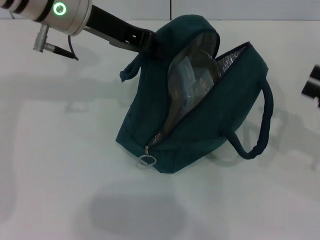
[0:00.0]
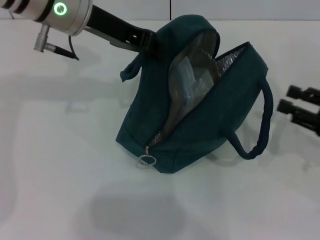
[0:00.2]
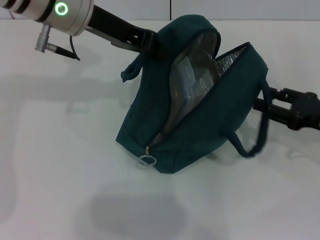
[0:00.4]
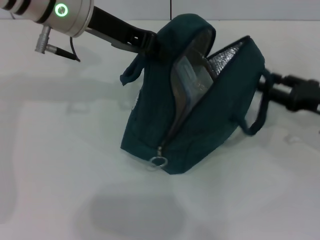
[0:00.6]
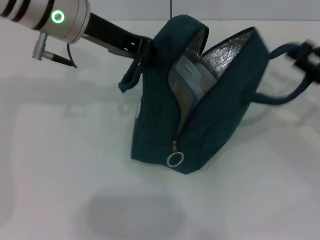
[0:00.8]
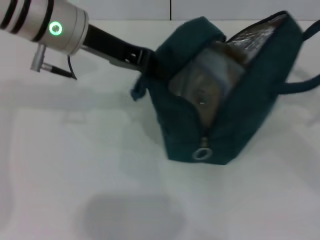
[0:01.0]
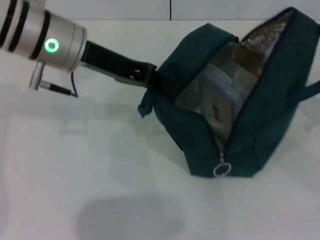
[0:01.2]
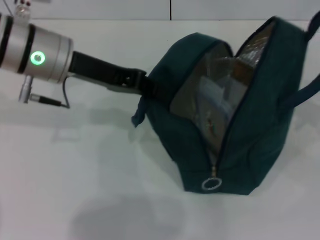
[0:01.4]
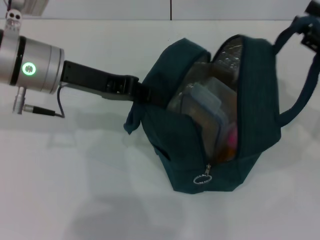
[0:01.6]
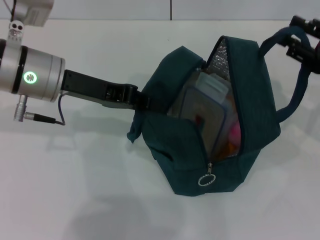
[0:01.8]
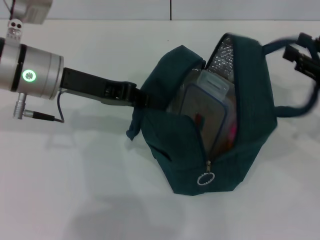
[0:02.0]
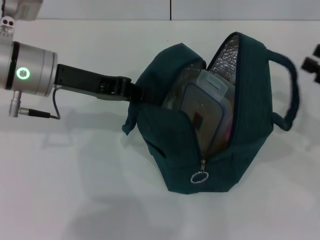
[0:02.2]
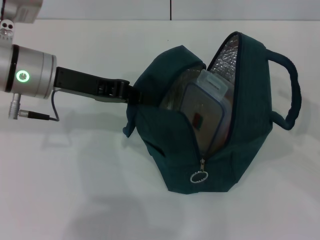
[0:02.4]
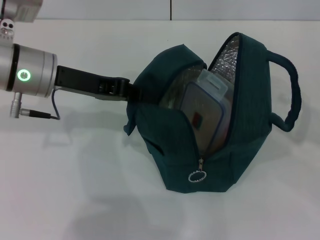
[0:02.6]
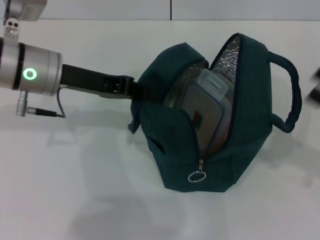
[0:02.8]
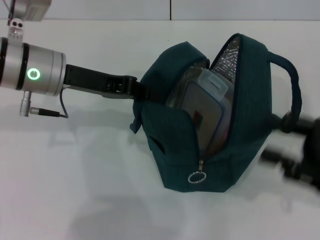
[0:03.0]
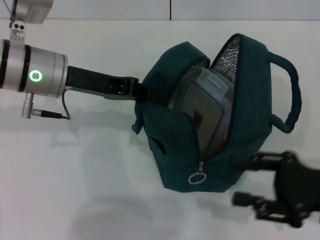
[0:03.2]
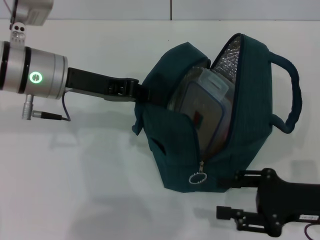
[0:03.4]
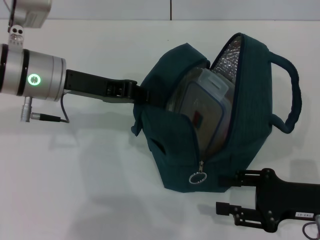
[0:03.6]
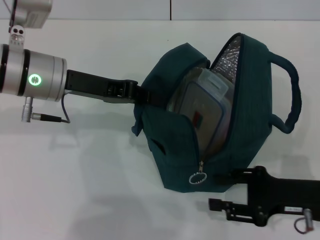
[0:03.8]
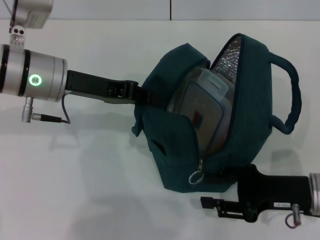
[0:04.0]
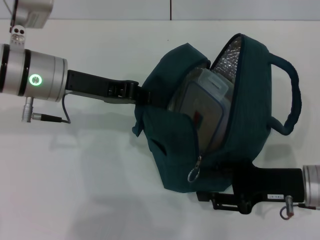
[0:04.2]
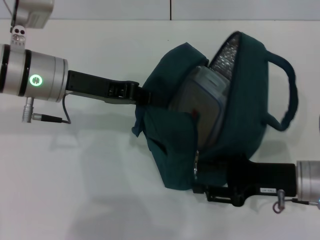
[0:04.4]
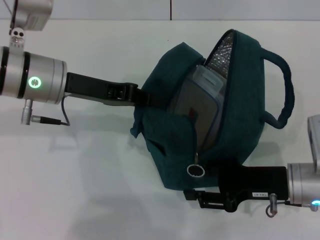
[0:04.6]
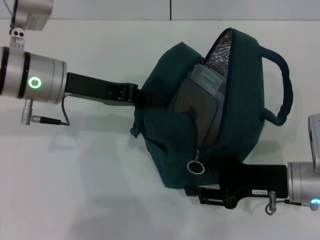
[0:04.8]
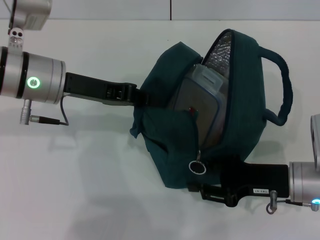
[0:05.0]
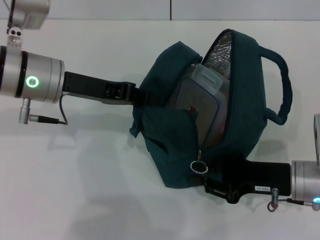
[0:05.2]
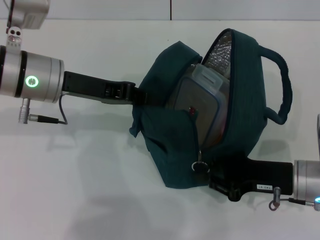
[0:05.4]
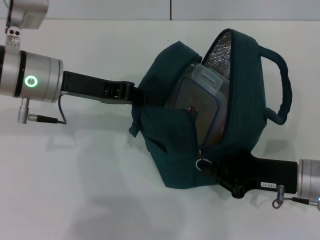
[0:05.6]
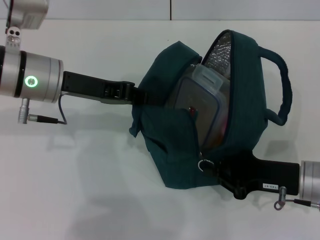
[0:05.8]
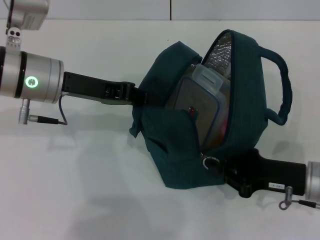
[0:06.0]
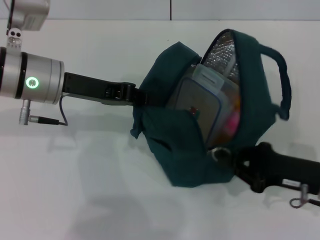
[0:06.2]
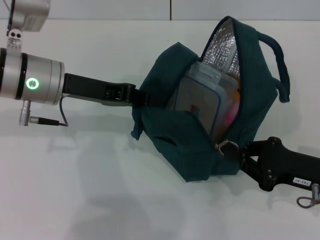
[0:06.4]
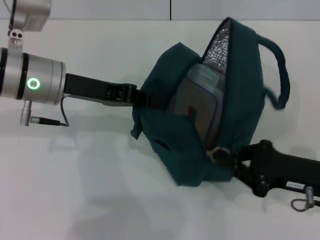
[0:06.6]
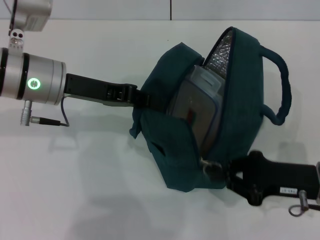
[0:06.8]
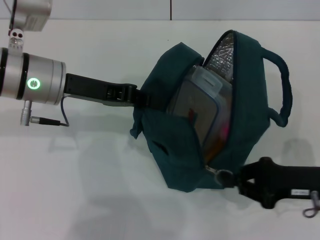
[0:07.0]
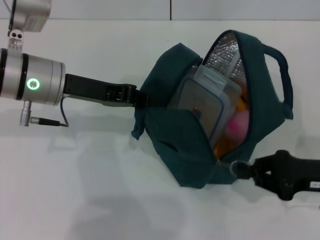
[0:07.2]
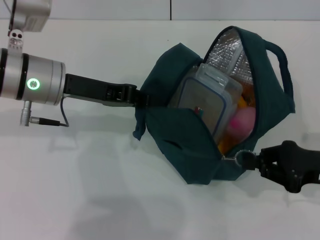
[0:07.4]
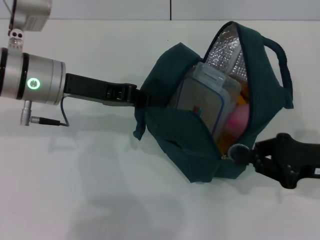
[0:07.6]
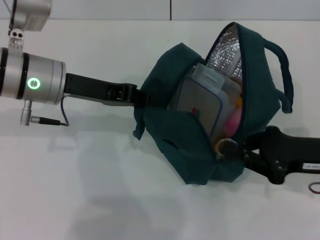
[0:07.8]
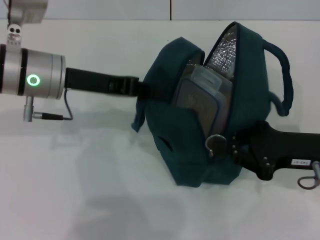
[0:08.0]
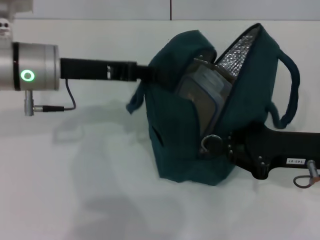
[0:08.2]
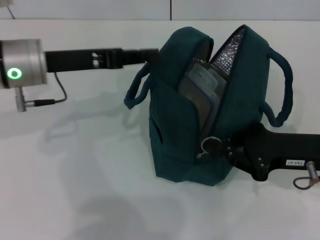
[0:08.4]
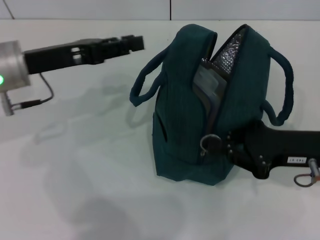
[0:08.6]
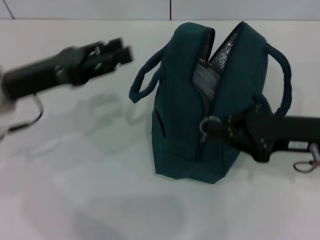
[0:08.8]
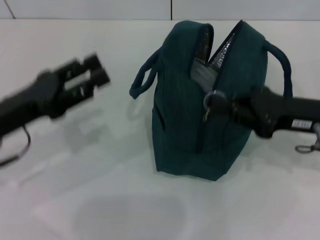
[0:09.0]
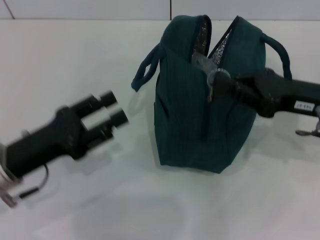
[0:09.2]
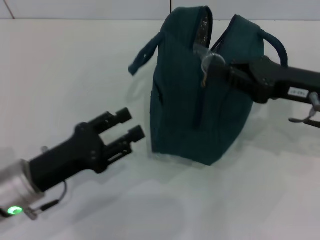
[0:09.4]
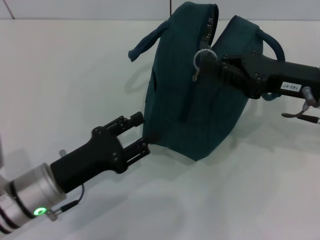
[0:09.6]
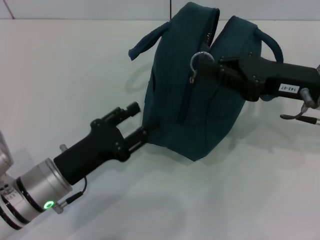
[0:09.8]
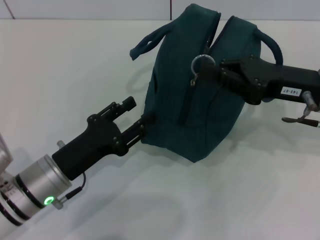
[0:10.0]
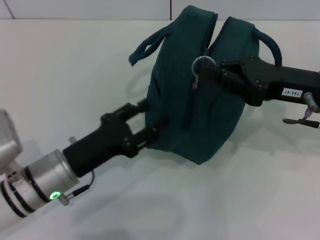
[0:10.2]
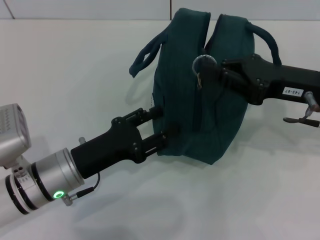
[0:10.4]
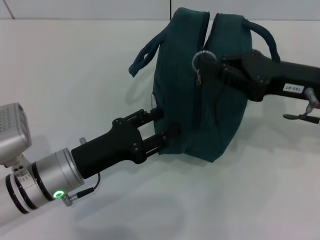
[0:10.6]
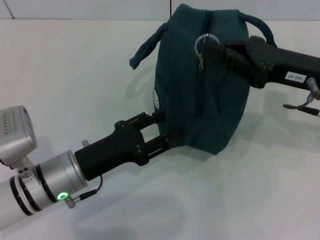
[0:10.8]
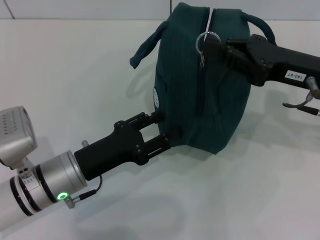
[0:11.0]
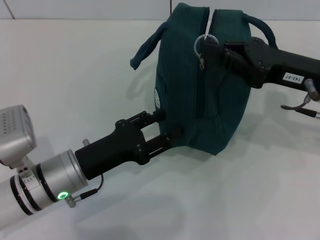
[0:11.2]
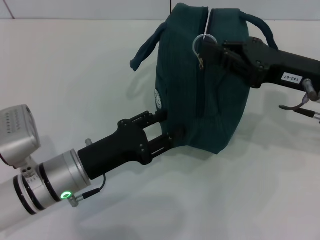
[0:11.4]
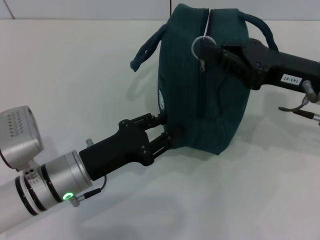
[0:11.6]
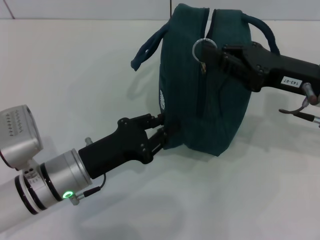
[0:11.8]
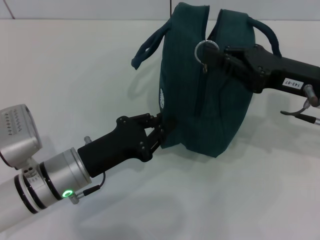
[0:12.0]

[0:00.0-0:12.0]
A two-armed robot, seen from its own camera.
Step, 0:00.0 to 0:02.0: Hold the lunch bag with your right hand.
0:00.0 to 0:01.6: The right gripper goes some 5 cm forward, and reaches some 5 cm downward, then returns; the left gripper moves downward, some 5 cm.
0:01.6 to 0:03.0: The right gripper travels backward by roughly 10 cm.
0:03.0 to 0:04.4: The right gripper travels to the left and downward by approximately 10 cm.
0:04.4 to 0:06.0: The right gripper closes.
0:06.0 to 0:07.6: The right gripper travels upward by approximately 5 cm.
0:07.6 to 0:09.0: The right gripper changes place by some 5 cm; the left gripper goes roughly 10 cm backward and to the left, and opens up.
0:09.0 to 0:10.4: The left gripper moves to the right and downward, some 10 cm.
0:10.4 to 0:12.0: The left gripper closes its fingers.

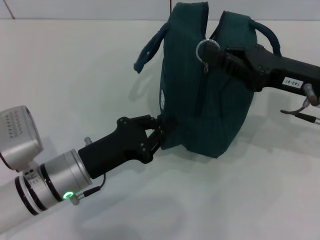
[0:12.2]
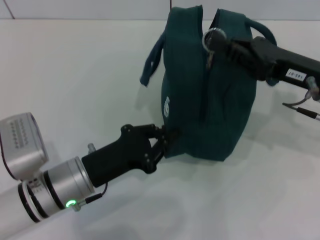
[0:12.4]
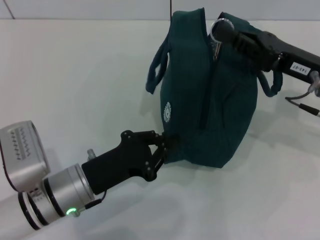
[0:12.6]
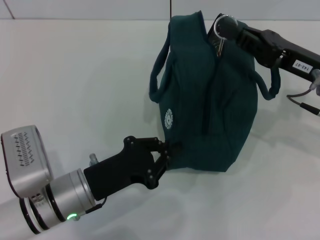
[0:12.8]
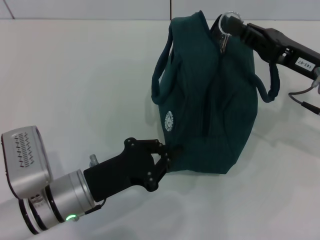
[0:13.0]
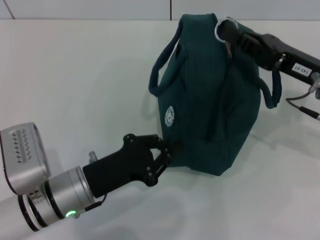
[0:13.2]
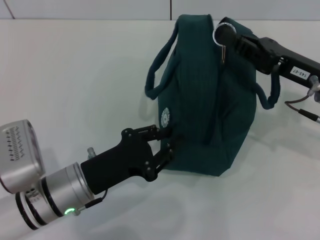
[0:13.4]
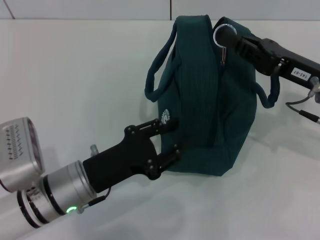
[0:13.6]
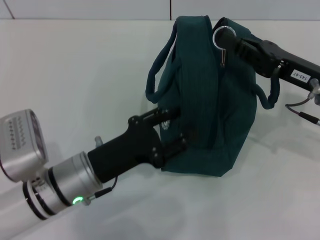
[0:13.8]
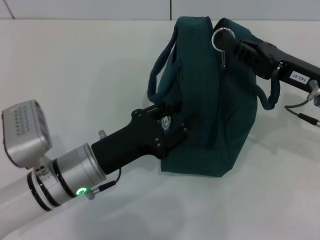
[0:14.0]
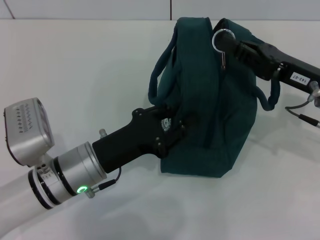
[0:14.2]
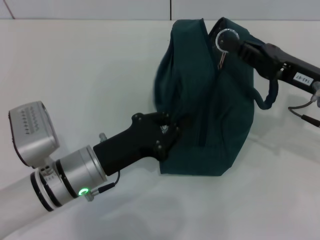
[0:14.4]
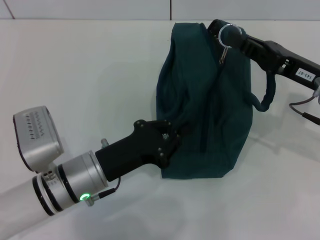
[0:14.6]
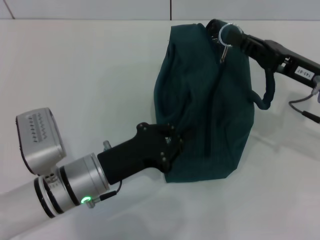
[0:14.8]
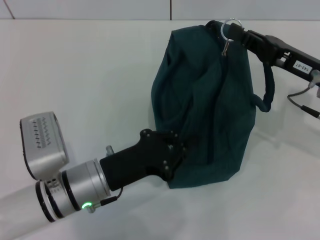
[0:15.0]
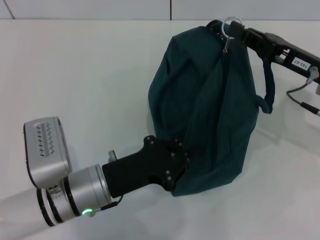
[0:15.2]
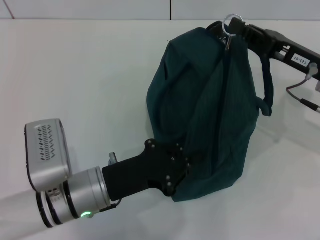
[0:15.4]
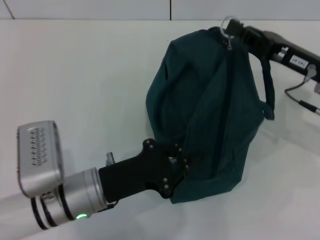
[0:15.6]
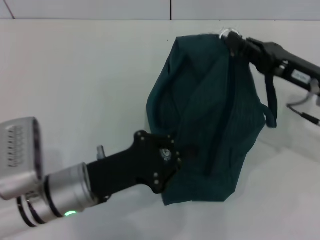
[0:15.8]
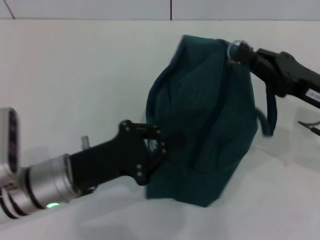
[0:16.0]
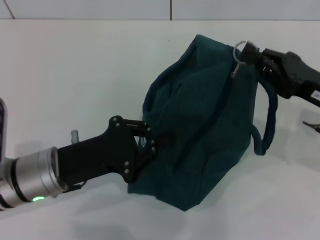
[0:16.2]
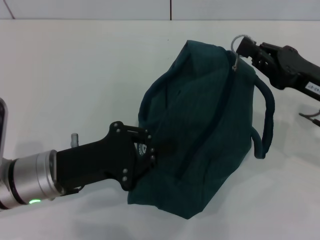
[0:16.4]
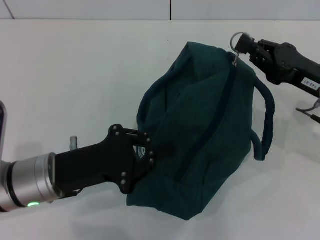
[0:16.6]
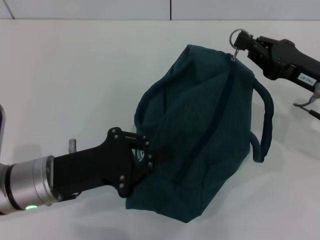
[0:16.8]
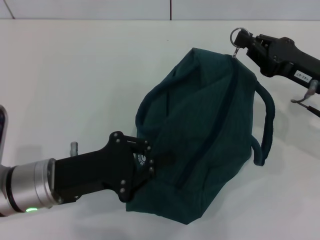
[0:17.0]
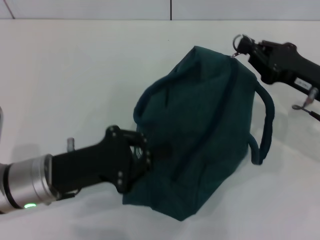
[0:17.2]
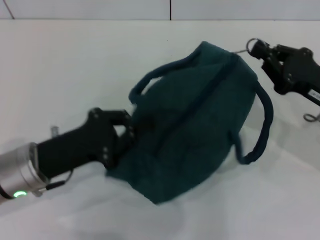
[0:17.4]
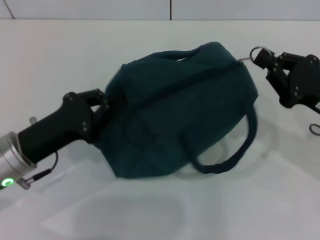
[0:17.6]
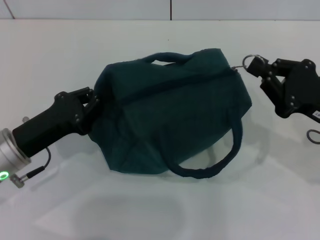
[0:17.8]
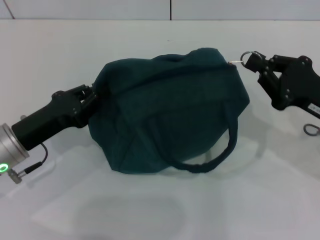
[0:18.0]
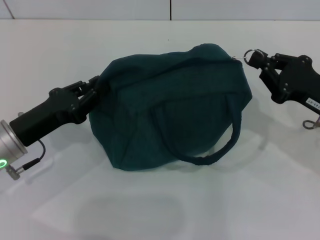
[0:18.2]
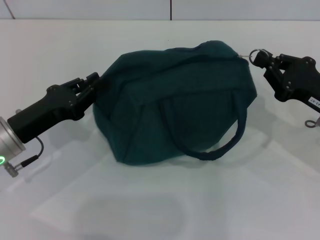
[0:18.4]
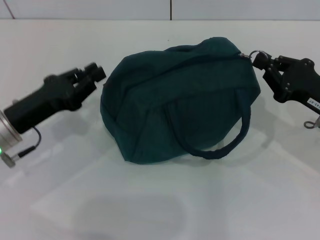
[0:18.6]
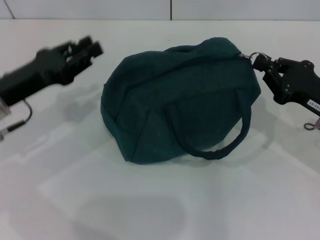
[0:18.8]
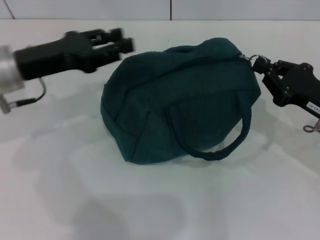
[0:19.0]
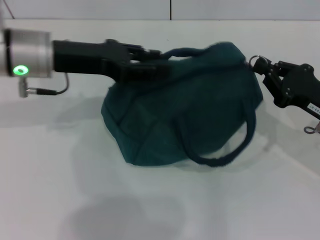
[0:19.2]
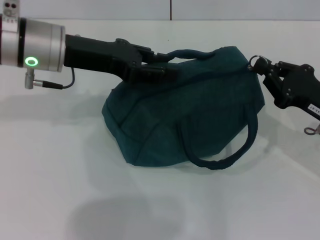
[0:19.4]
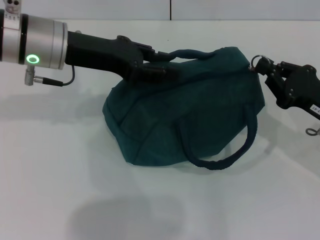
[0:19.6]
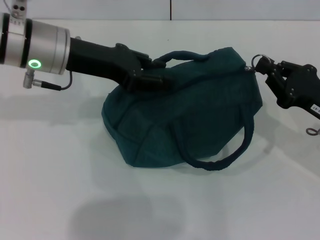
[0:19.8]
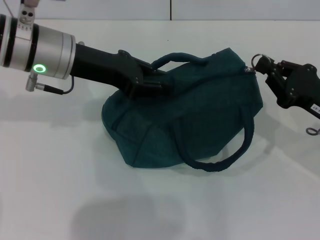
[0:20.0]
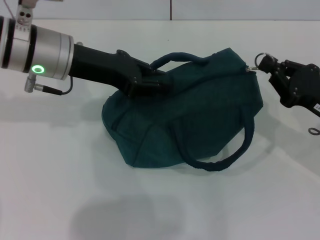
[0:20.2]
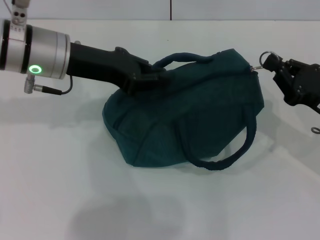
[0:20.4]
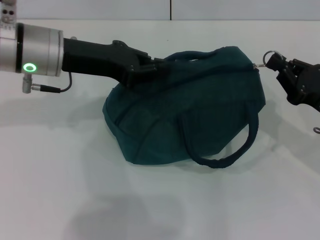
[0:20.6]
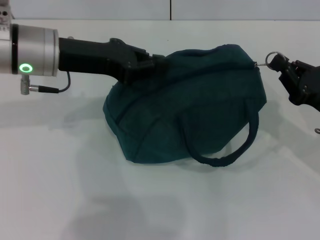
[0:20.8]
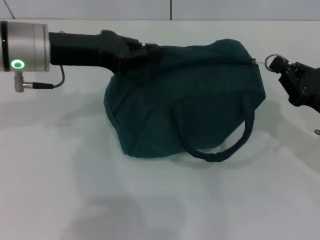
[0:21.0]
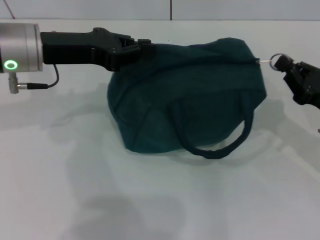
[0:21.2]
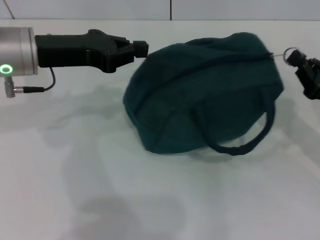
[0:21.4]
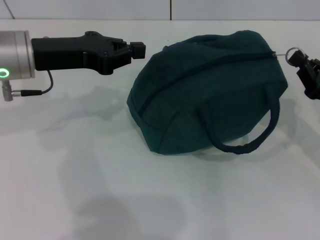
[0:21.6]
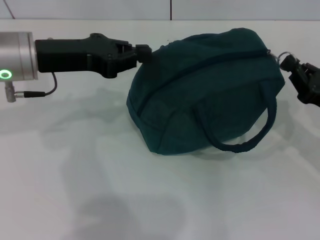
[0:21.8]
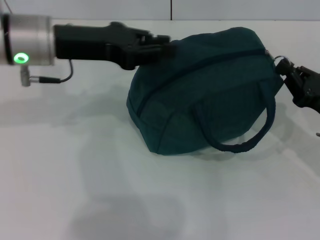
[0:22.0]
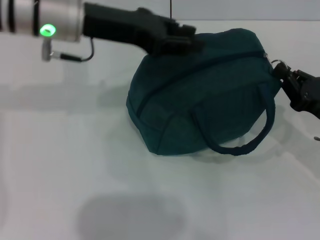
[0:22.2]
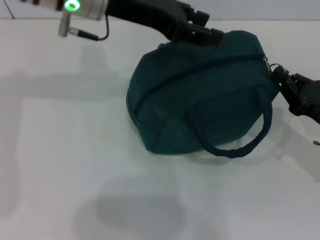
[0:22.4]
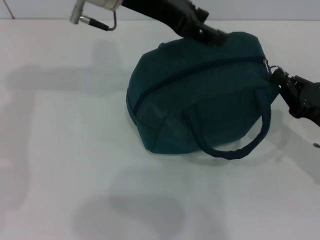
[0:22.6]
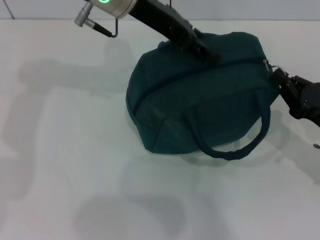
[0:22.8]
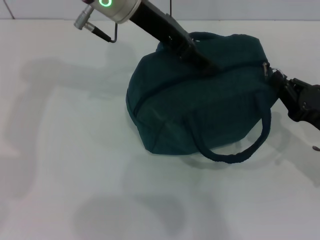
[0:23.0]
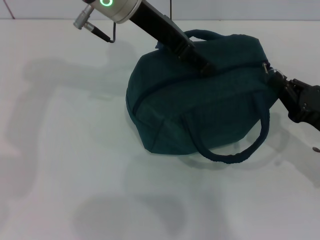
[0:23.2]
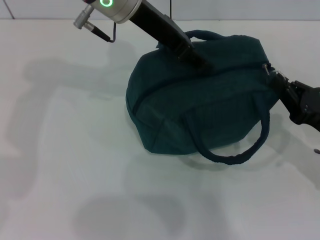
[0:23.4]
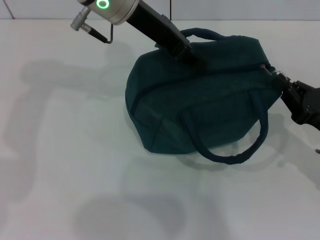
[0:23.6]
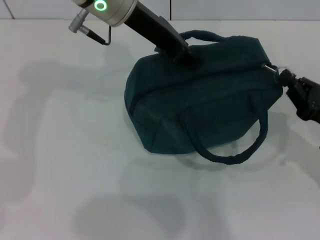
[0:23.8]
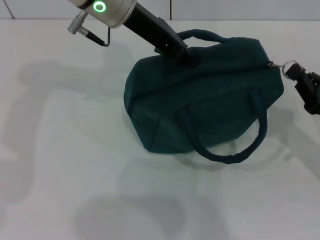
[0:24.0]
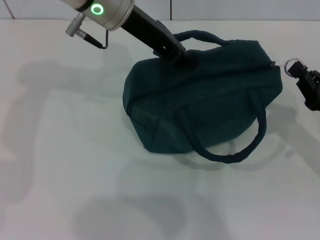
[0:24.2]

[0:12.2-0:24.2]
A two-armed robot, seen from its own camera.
0:13.8 to 0:15.2: The left gripper closes.
0:15.2 to 0:16.6: The left gripper heads to the left, covering roughly 5 cm.
0:16.6 to 0:18.2: The left gripper is displaced to the left by roughly 5 cm.
0:18.2 to 0:19.8: The left gripper travels upward, forward and to the right by roughly 20 cm.
0:19.8 to 0:21.2: The left gripper closes its fingers.
0:21.2 to 0:22.6: The left gripper heads to the right, upward and forward, covering roughly 15 cm, and opens up.
0:22.6 to 0:24.2: The left gripper closes up.
